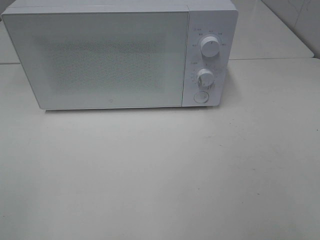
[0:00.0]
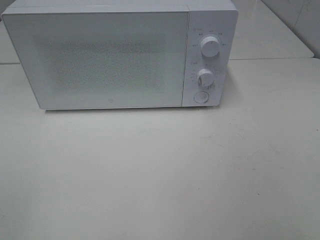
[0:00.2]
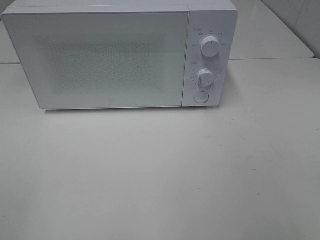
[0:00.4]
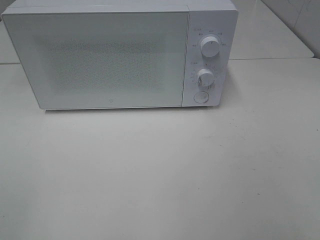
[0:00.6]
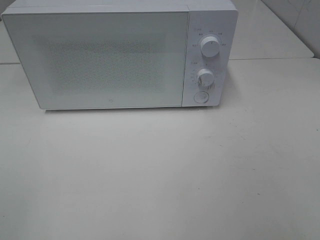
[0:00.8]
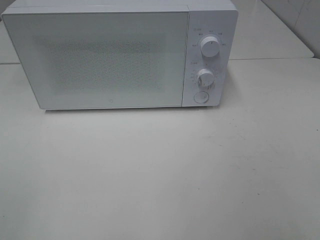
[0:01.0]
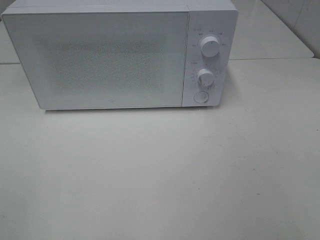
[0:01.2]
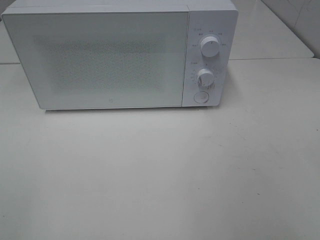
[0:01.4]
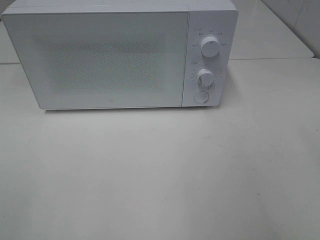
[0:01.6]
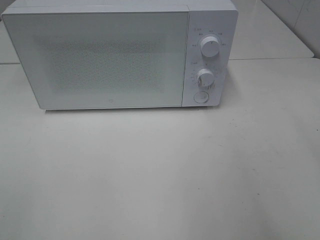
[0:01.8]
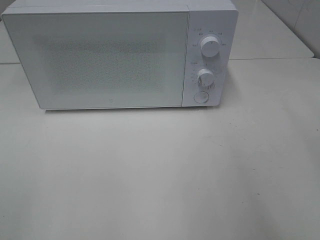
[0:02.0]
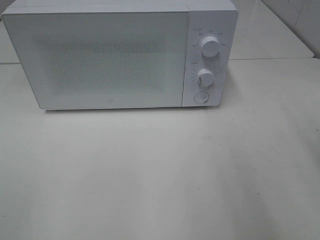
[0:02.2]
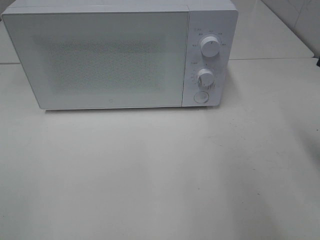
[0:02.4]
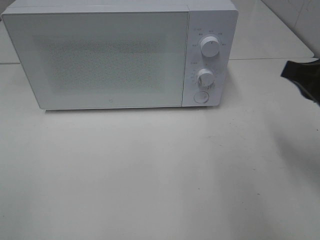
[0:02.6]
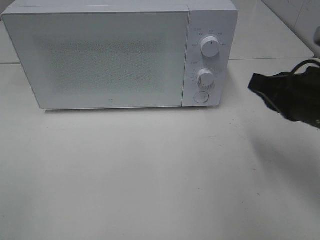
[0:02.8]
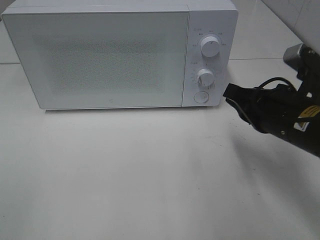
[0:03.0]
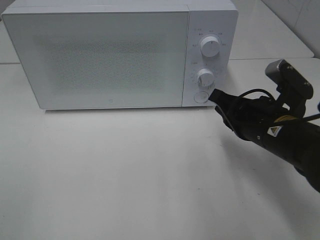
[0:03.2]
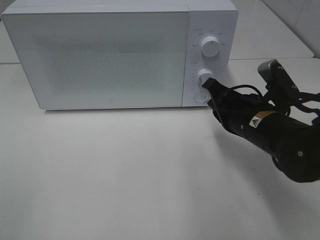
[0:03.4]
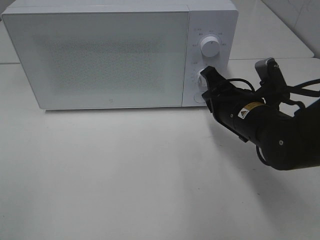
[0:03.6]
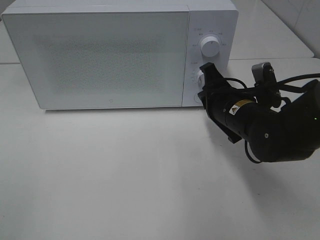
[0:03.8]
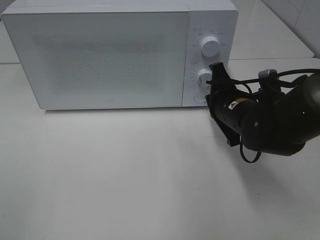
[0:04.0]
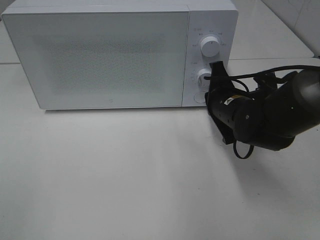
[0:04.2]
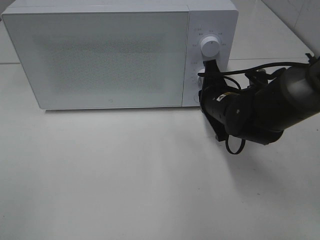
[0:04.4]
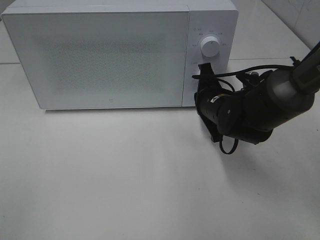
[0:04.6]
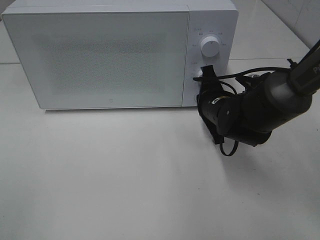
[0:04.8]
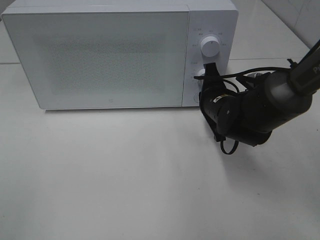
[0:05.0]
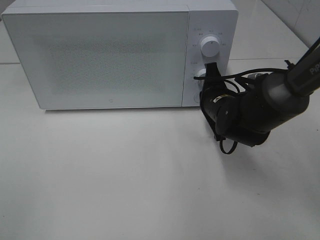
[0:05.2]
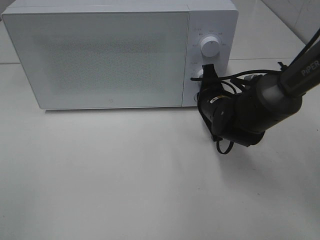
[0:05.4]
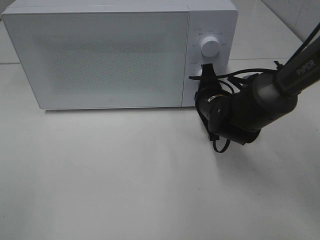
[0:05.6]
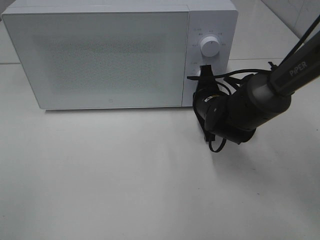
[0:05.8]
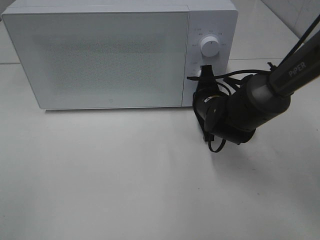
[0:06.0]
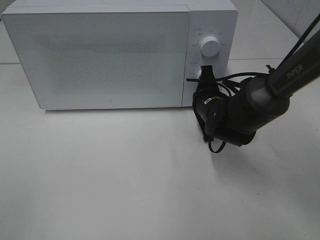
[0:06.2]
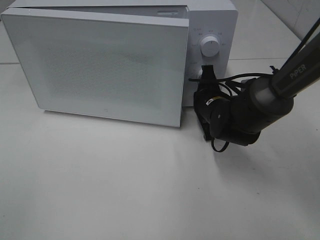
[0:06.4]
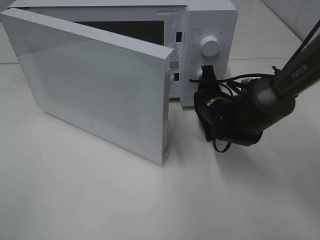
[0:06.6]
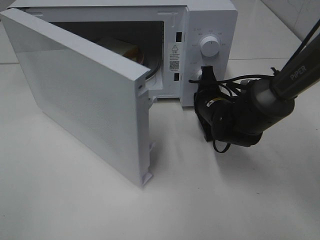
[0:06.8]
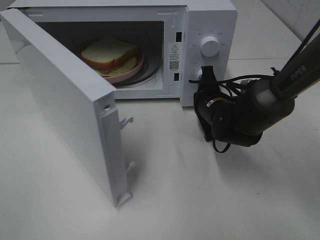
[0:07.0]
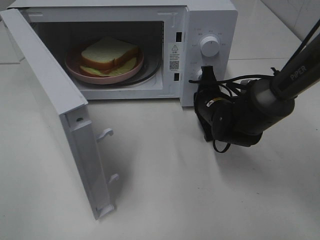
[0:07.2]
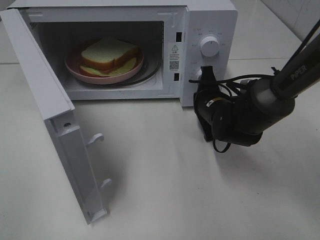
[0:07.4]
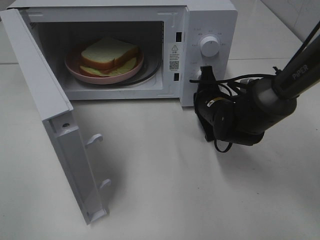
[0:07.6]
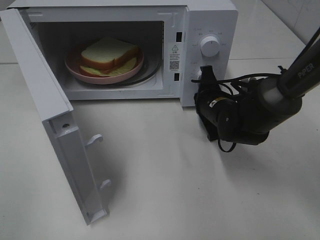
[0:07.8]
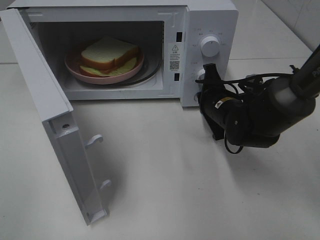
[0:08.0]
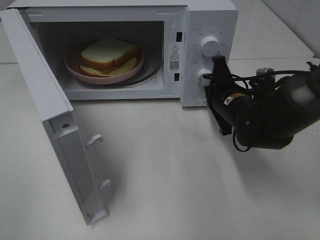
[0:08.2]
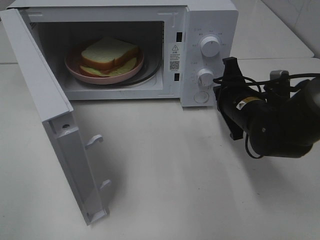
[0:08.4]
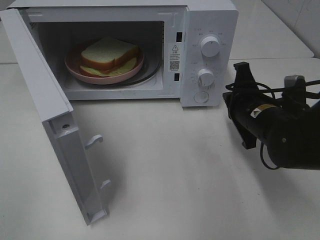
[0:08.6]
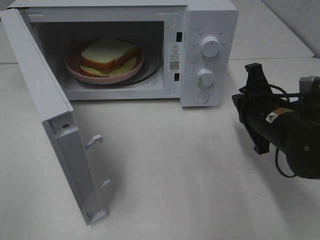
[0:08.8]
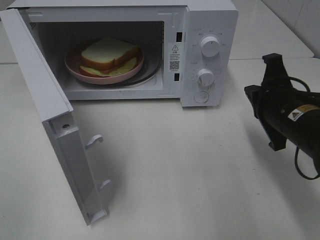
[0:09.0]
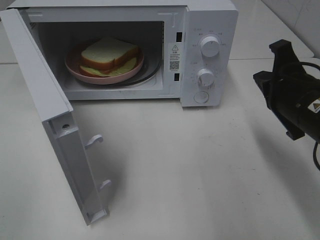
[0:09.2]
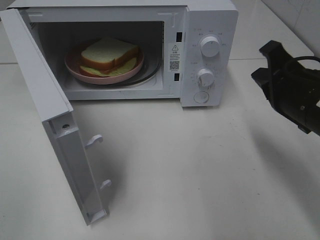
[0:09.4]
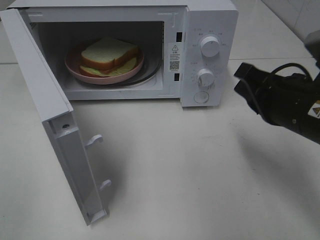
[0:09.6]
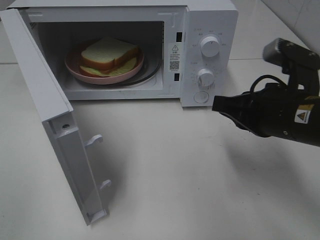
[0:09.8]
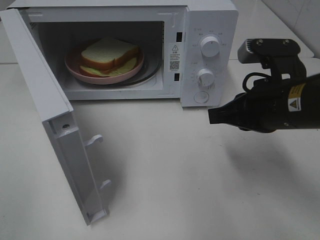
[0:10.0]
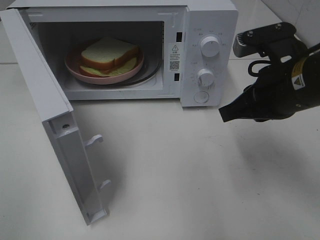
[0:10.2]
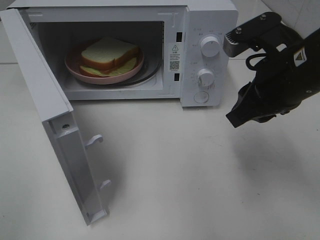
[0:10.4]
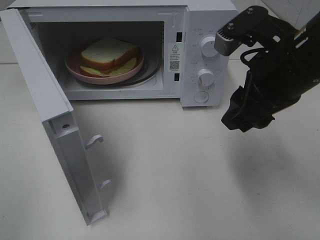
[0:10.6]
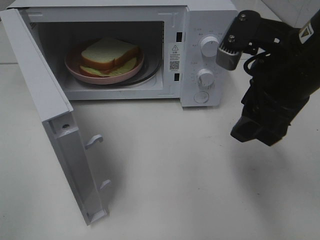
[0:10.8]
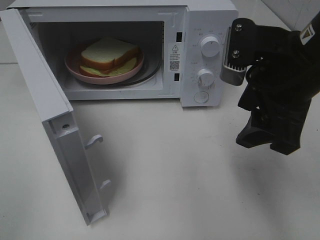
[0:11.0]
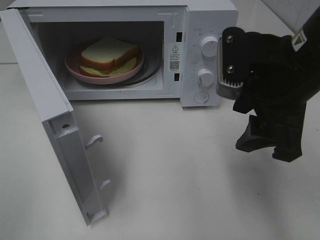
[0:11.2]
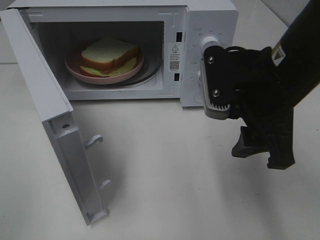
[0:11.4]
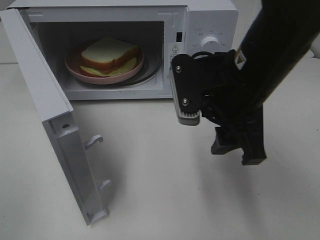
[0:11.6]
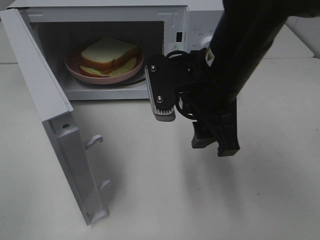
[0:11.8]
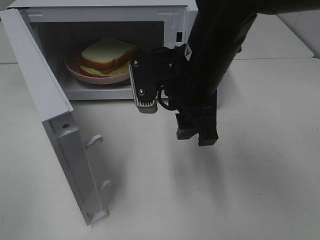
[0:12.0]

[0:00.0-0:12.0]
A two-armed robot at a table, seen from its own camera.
Task of the whole recording: Heat Sandwich.
Step, 0:00.0 to 0:08.2: Right hand: press the switch.
0:01.6 to 0:03.0: The right gripper heads downward, forward and to the left, covering some 25 cm, and closes its fingers.
0:03.0 to 0:04.4: The right gripper heads forward, downward and to the left, covering approximately 15 cm.
0:04.4 to 0:06.0: The grippers make only small movements.
0:07.6 to 0:09.0: The right gripper heads backward, upward and to the right, covering about 15 cm.
0:09.0 to 0:10.4: The right gripper heads upward, covering roughly 10 cm, and opens up.
0:10.4 to 0:12.0: The right gripper shifts about 10 cm to the left.

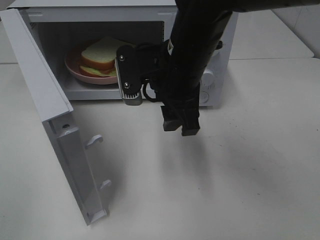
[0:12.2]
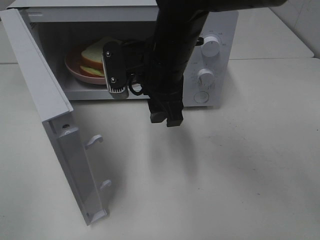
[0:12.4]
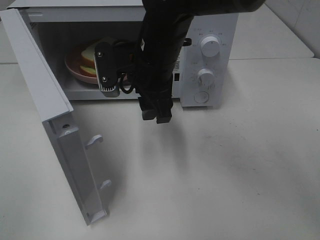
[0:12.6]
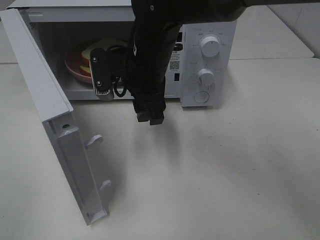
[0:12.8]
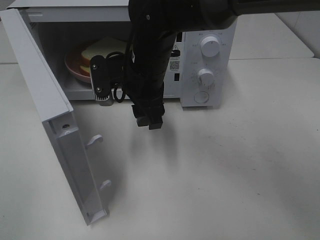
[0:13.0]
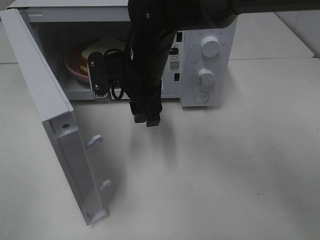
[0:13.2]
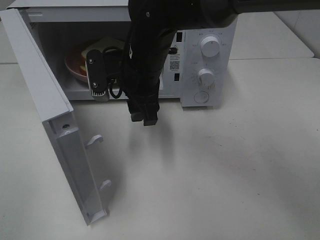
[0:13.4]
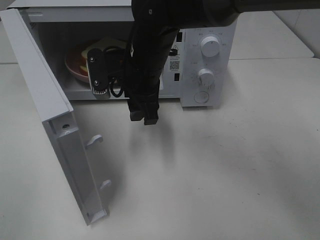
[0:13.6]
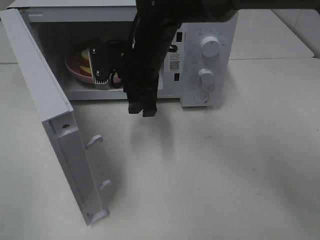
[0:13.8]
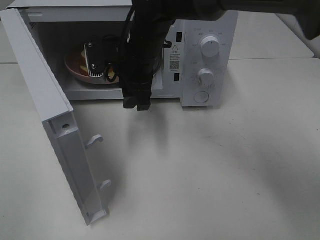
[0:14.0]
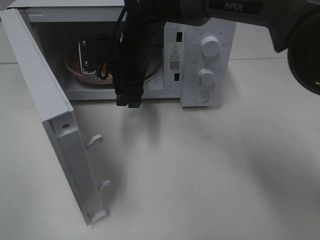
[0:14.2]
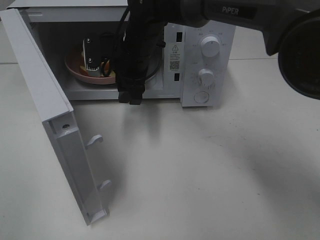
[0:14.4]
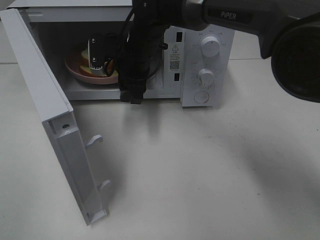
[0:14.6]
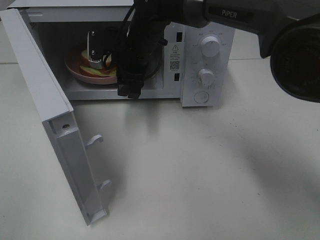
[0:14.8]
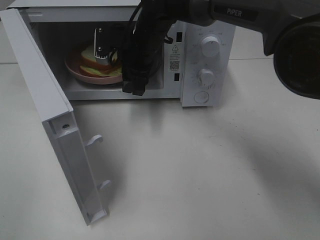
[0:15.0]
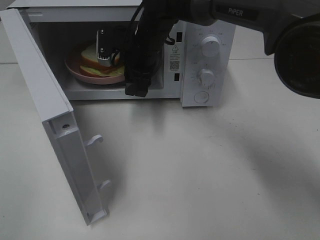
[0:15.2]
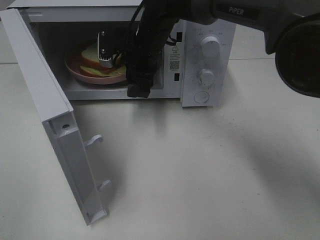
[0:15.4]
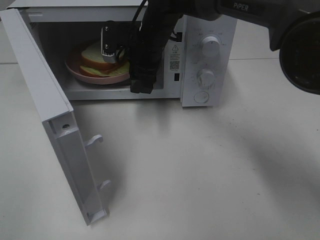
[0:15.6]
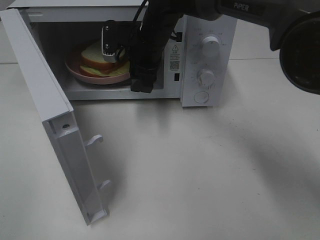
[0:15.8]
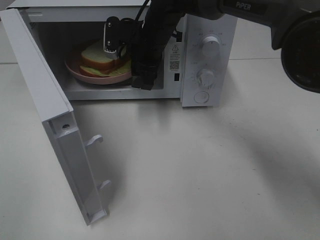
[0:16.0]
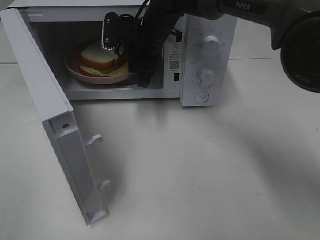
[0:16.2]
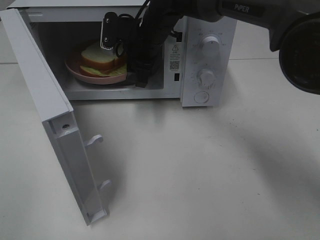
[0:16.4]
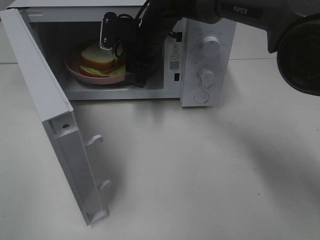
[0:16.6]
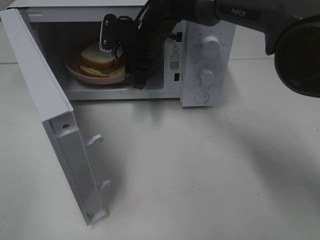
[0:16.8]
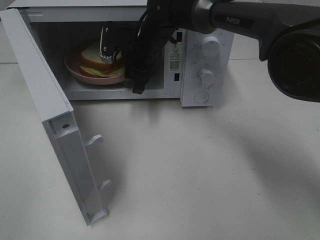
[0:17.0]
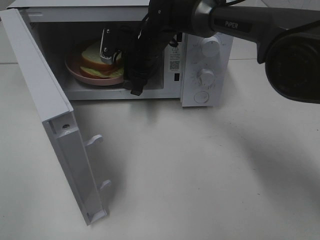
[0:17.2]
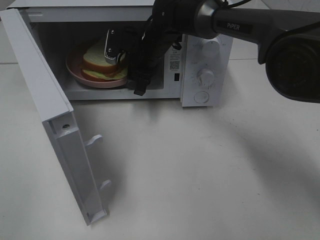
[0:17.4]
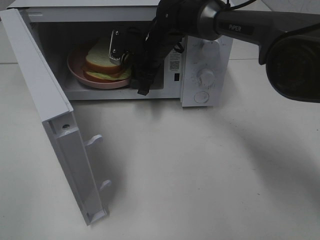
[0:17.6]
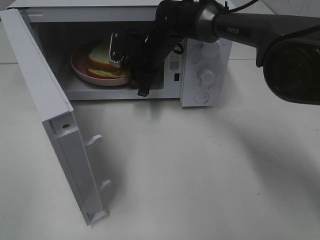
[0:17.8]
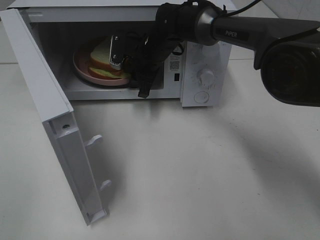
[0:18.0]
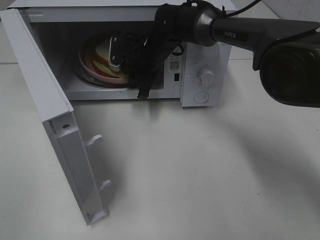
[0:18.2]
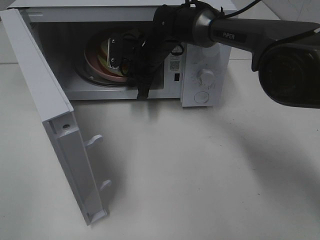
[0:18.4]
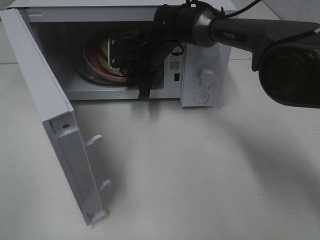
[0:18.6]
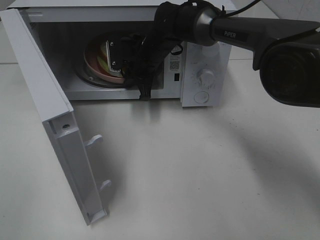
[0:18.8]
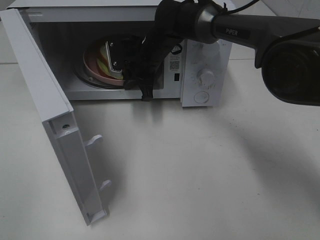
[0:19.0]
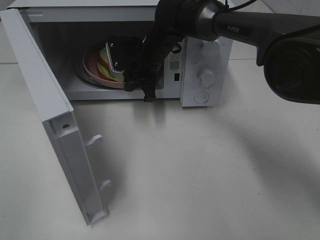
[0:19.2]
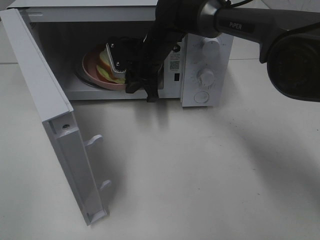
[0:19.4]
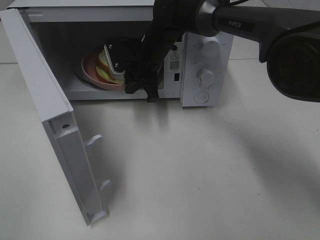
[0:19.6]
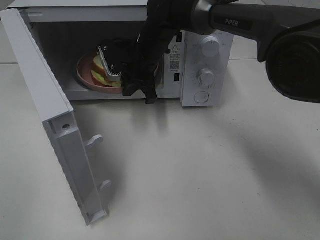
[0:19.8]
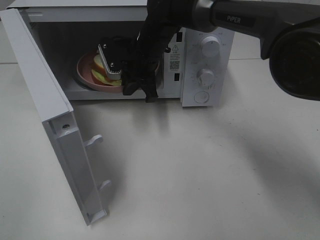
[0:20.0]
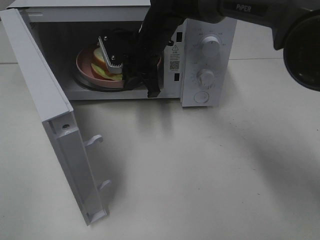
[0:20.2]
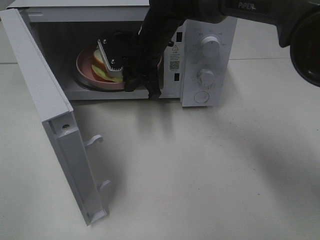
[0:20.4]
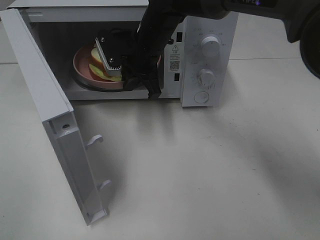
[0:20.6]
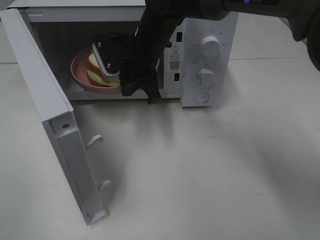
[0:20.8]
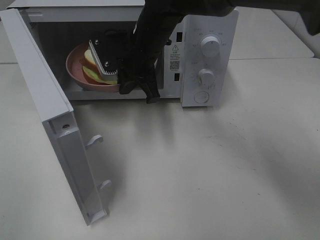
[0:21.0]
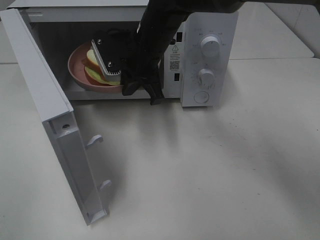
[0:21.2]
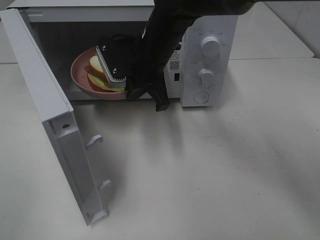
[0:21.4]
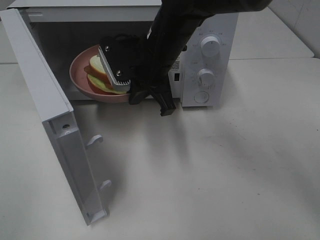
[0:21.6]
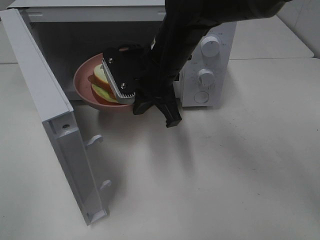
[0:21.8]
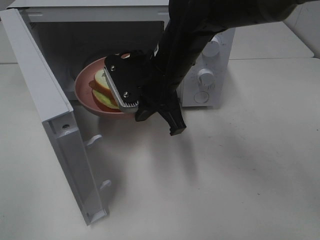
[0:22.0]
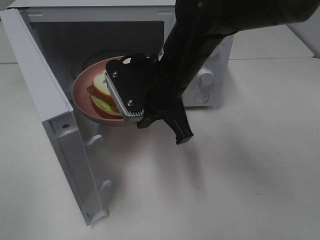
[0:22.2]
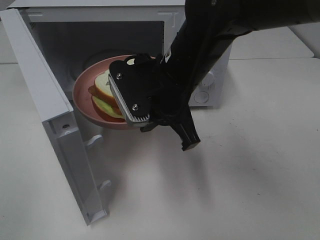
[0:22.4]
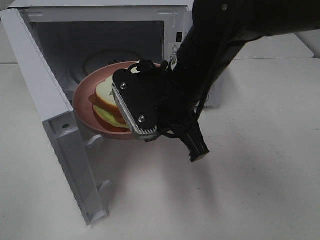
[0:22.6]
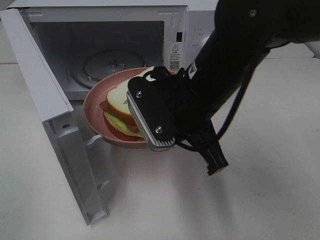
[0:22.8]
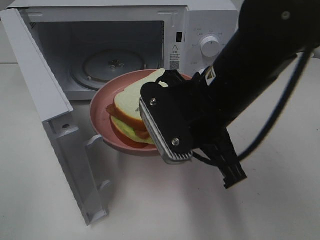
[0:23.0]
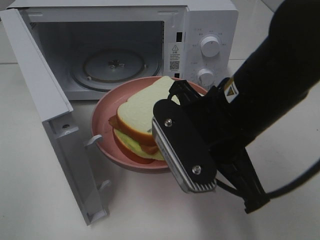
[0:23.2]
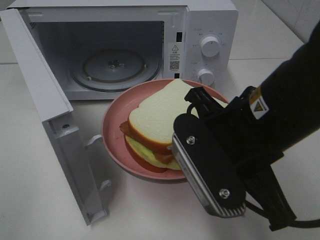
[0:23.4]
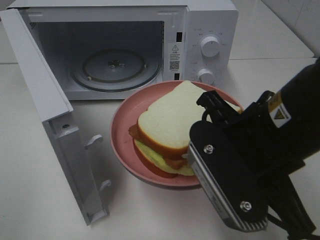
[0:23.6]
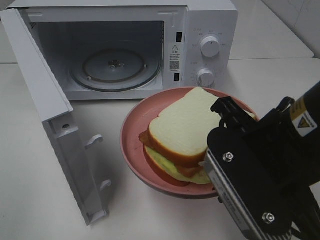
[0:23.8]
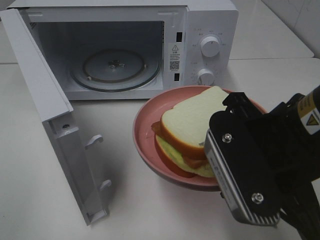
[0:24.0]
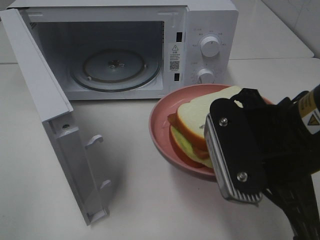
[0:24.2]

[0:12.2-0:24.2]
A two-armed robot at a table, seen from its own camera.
Task of the whole recording: Heat Sandwich.
Step, 0:12.2 to 0:18.8: Right hand: grab the plate with the sandwich.
0:12.2 to 0:13.8: The right gripper shifts some 10 cm forward.
0:13.8 to 0:15.2: The right gripper heads forward, covering about 5 cm.
0:15.2 to 0:16.6: The grippers stay close to where they were, moving slightly.
0:16.6 to 0:18.2: The right gripper travels downward by some 5 cm, and closes.
0:19.8 to 0:21.2: The right gripper moves backward, roughly 5 cm.
0:21.2 to 0:22.6: The right gripper moves backward, about 15 cm.
0:22.6 to 0:24.2: The right gripper travels backward and to the right by about 15 cm.
